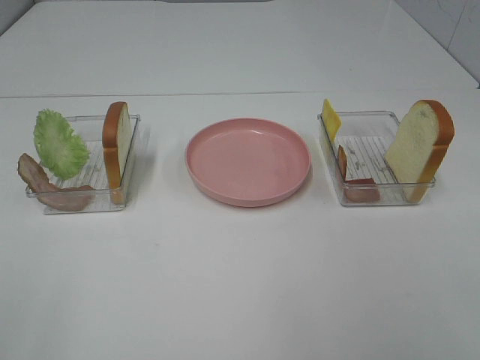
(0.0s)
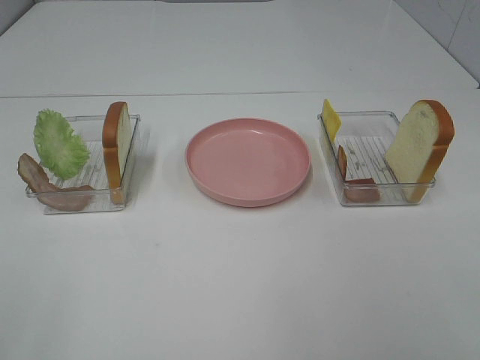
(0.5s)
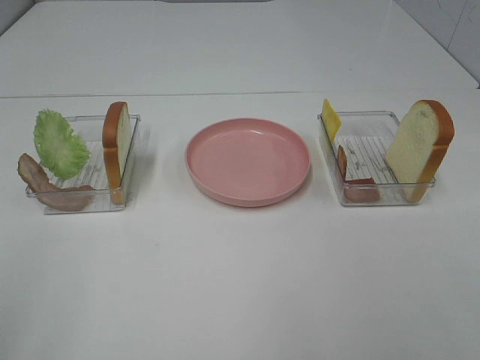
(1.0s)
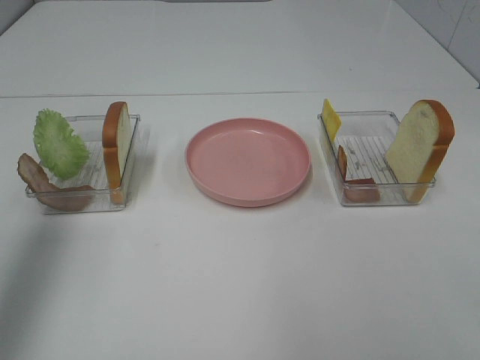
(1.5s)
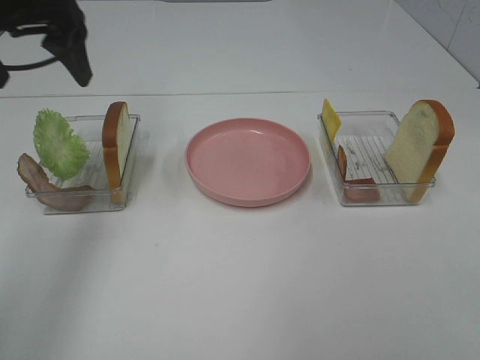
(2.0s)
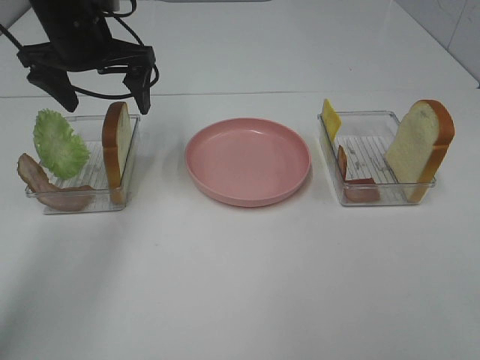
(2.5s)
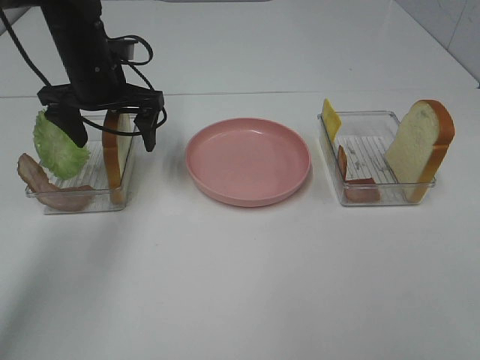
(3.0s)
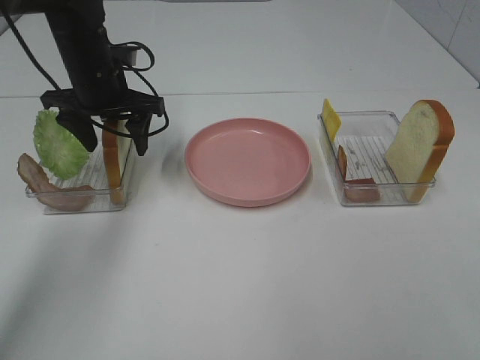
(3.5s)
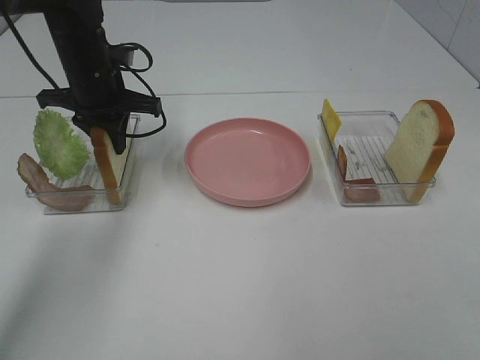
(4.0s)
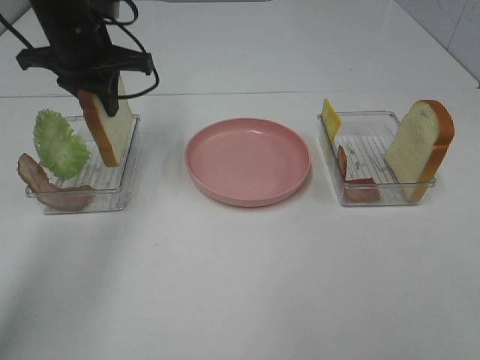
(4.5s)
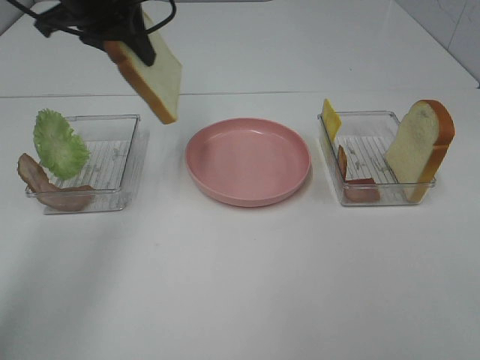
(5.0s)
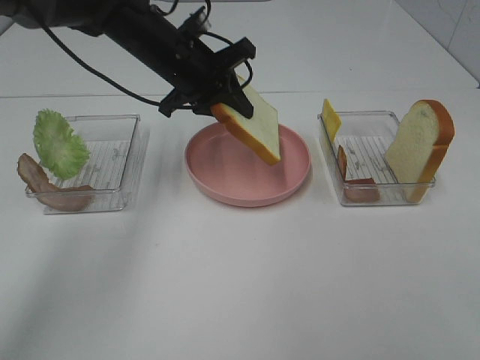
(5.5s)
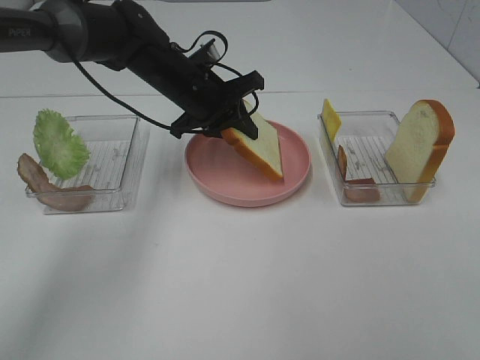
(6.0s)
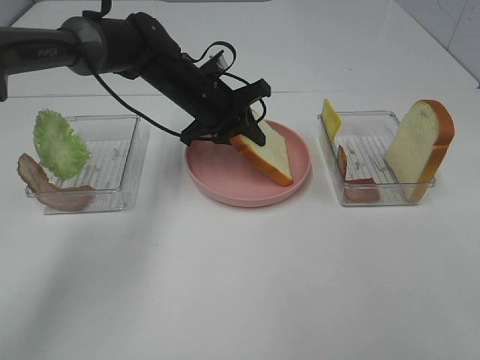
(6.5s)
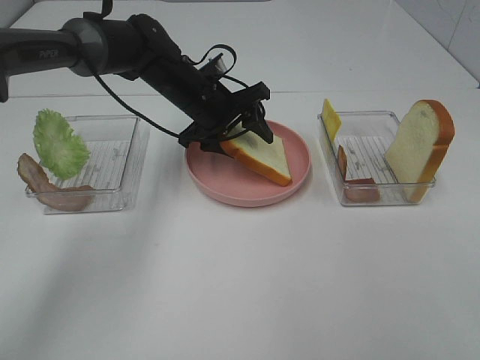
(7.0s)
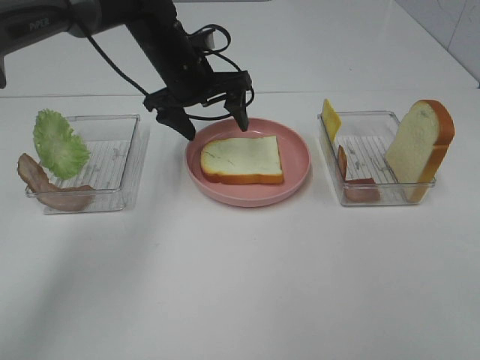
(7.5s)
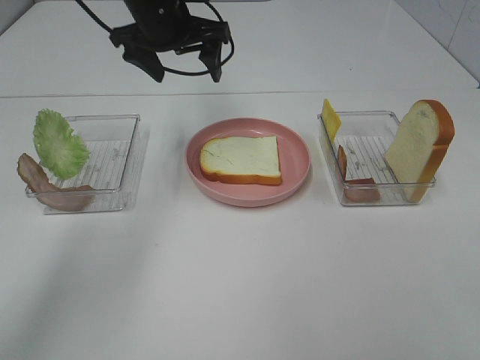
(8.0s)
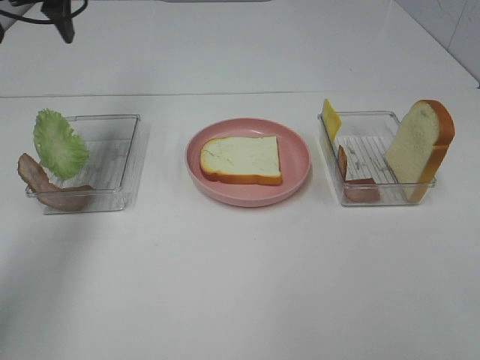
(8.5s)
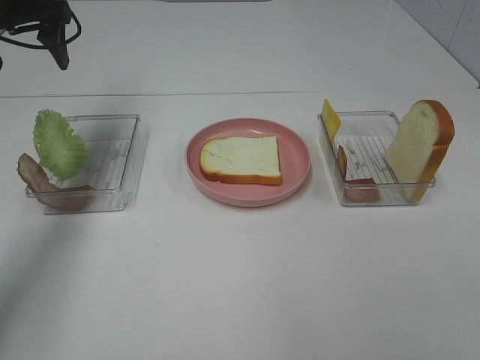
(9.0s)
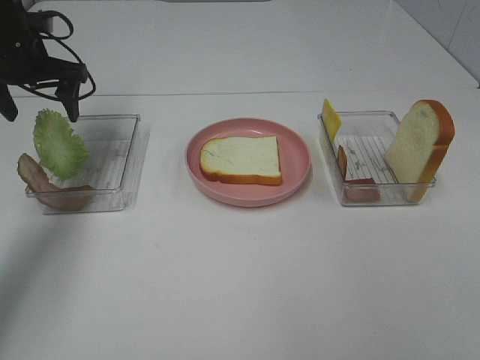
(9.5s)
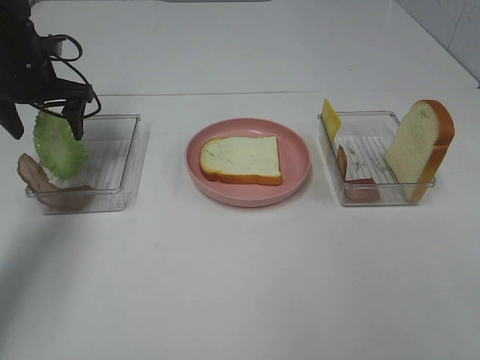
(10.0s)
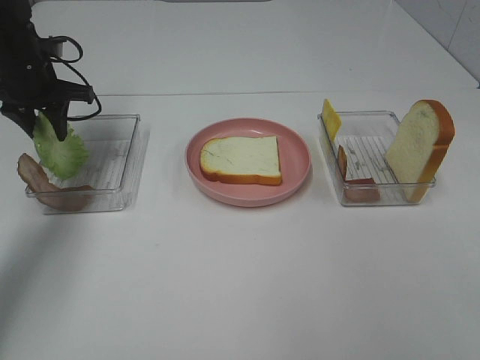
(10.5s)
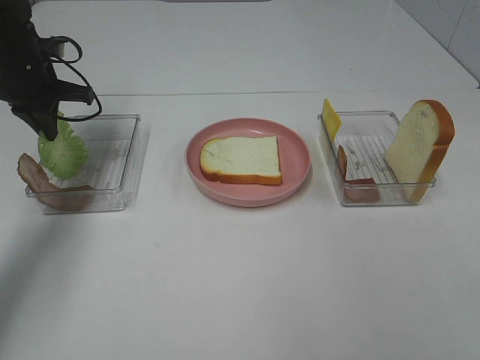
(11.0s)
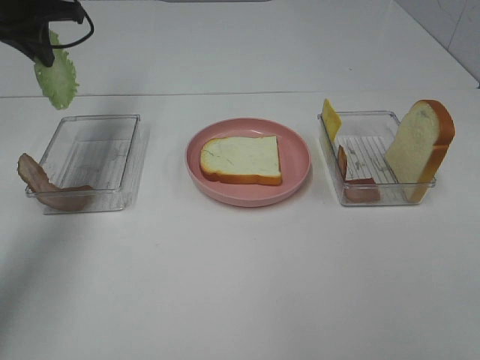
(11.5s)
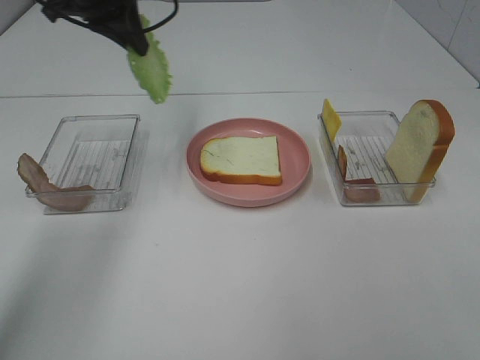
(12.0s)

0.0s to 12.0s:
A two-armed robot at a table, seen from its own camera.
Task of the whole recording: Make sandwiches.
Step, 0.0s to 3.5s: Left hand:grab the bread slice.
Step, 4.0s to 7.5s: Left hand:place the bread slice on the plate.
Step, 8.0s to 10.5s: Left hand:grab the lettuce slice.
0.0s to 2.0s: The left gripper goes approximately 40 cm forward.
2.0s to 4.0s: The left gripper goes some 15 cm downward and forward, and closes.
4.0s to 6.0s: The left gripper shifts about 10 cm to the right, and travels upward and back again, some 10 cm each way.
6.0s to 8.0s: The left gripper goes about 10 cm upward, and opens.
8.0s to 10.0s: The left gripper moves to the left and downward, approximately 20 cm.
10.0s to 12.0s: The left gripper travels upward and to the right by some 20 cm, and closes.

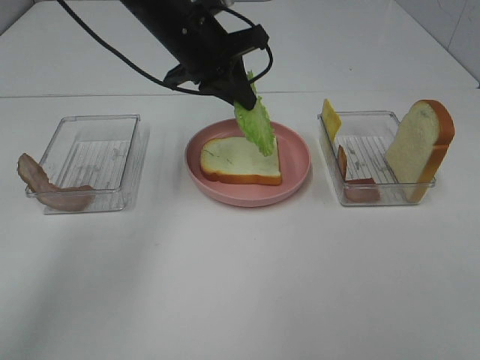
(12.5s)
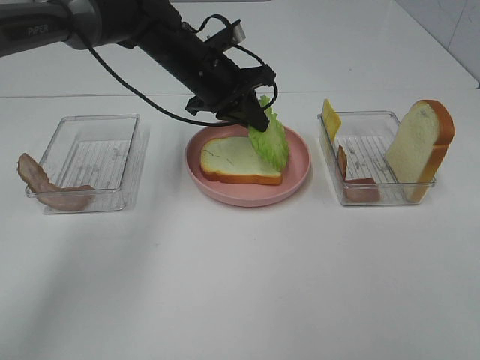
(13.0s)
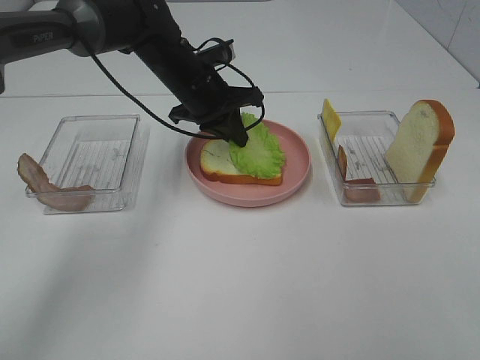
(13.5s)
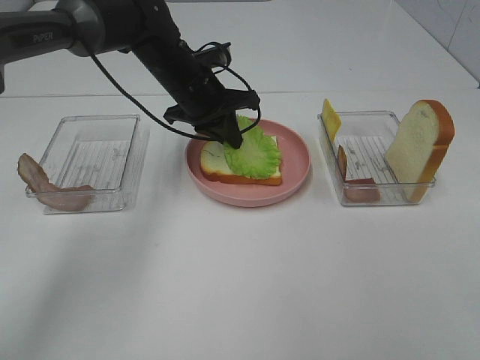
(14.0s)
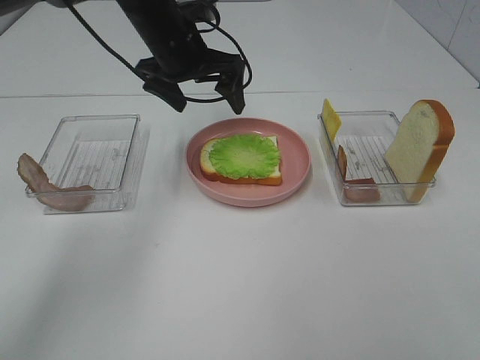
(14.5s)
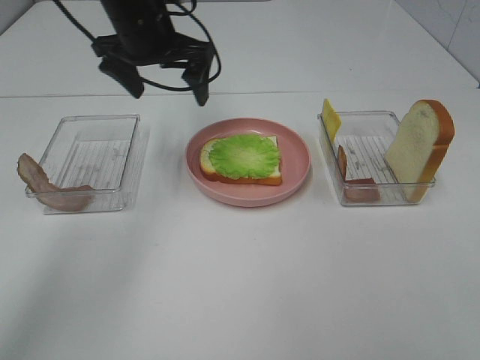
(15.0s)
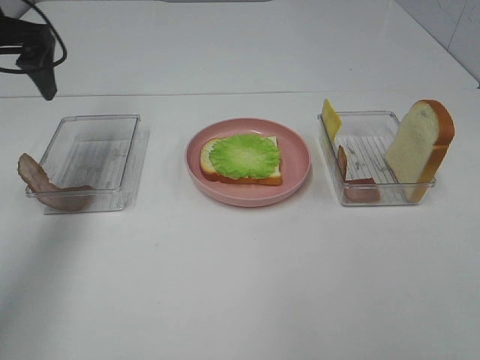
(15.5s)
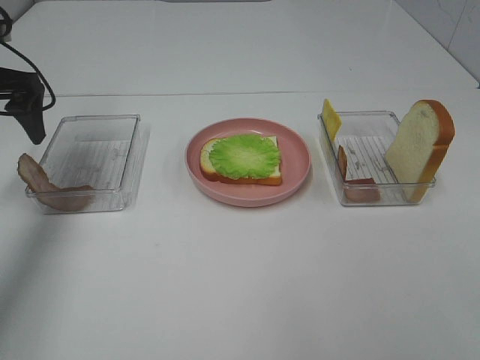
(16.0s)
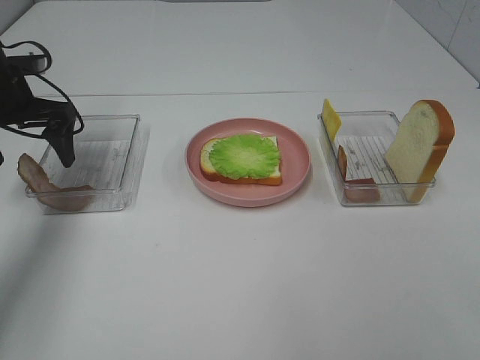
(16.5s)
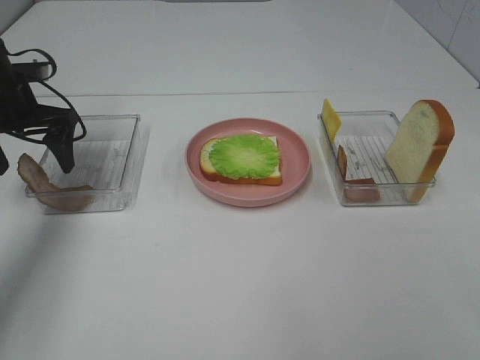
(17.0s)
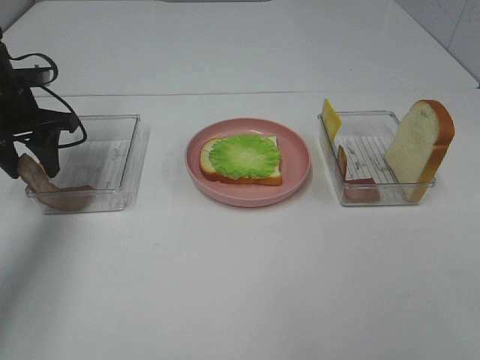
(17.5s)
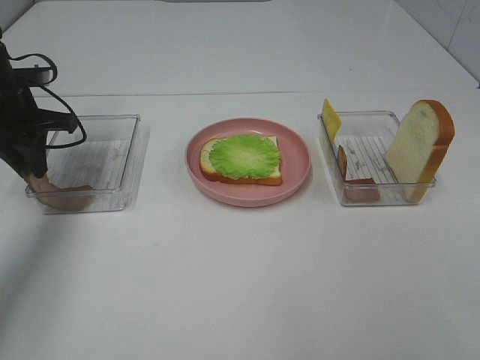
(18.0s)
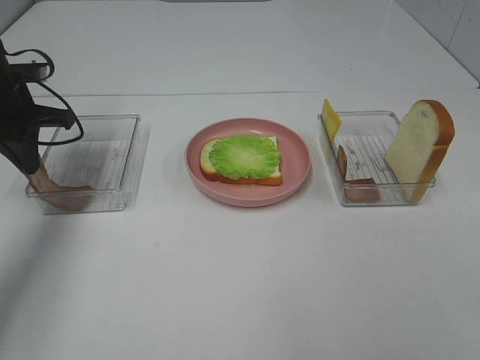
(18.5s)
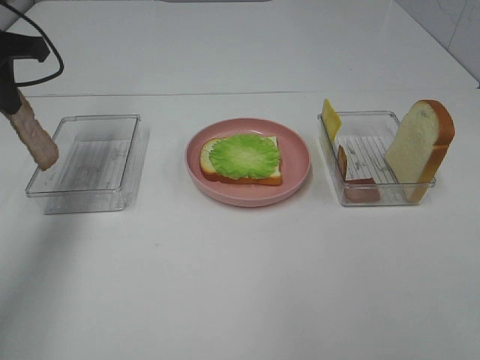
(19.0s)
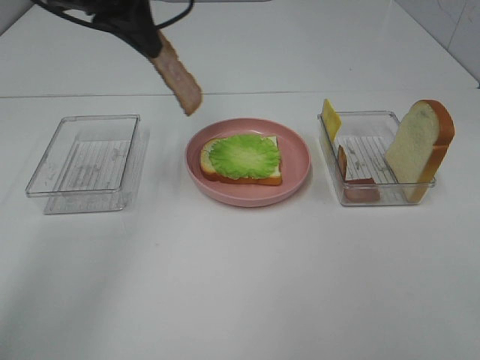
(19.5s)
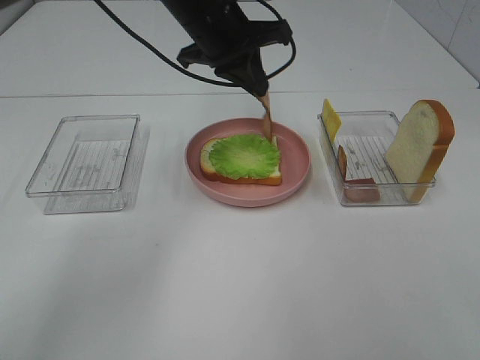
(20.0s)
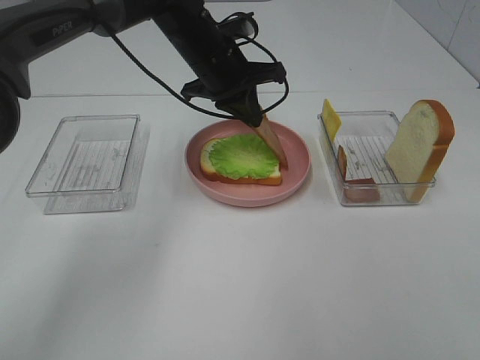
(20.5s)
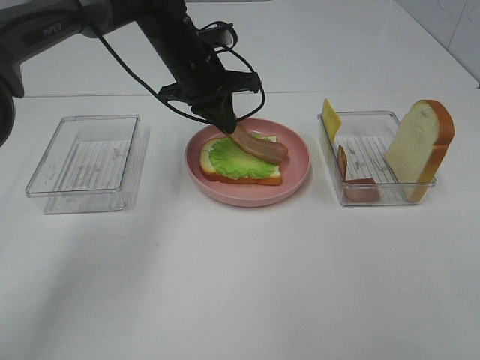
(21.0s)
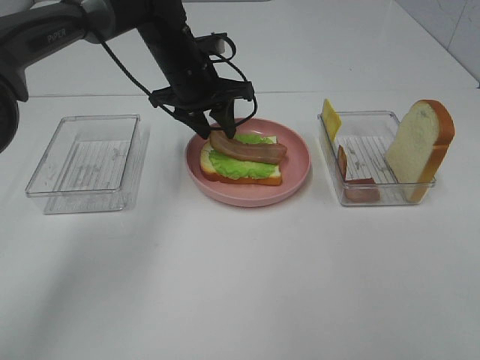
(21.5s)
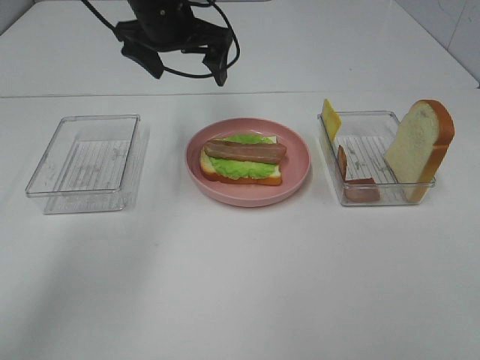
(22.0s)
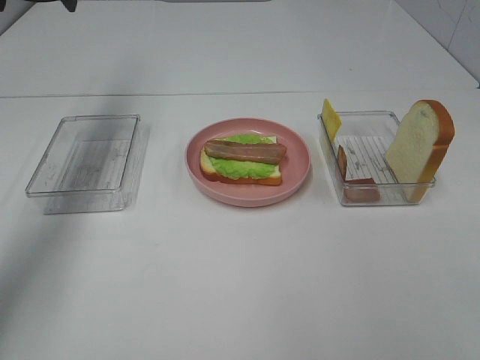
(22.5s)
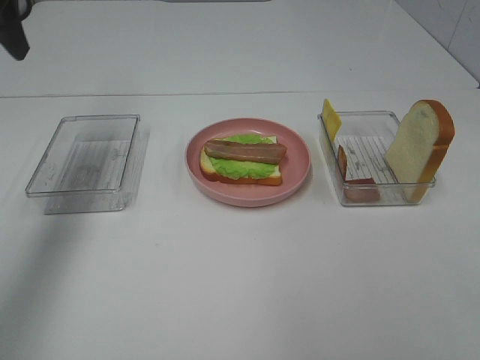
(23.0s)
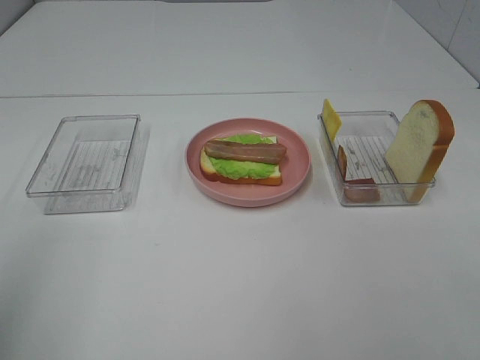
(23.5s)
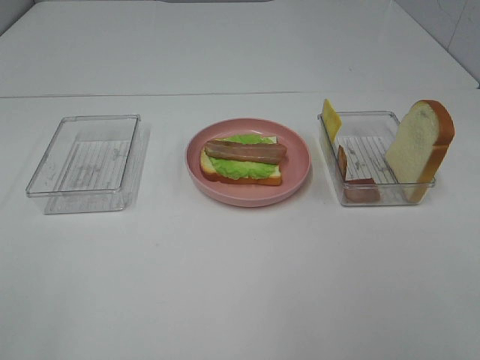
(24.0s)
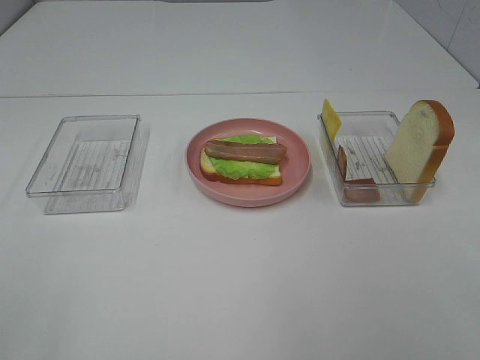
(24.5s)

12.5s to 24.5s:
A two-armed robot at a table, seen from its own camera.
Task of the whole recording: Make sandwiches.
Step, 14.5s to 18.0s: Left hand:grab the bacon.
Step, 18.5s to 22.0s: Left hand:place bacon on lettuce slice.
12.5s to 14.5s: The left gripper opens its fingers.
14.5s to 16.5s: The left gripper shifts roughly 20 cm to the left.
16.5s to 18.5s: The left gripper closes up.
18.5s to 20.5s: The left gripper goes some 25 cm to the right.
20.5s to 22.5s: The left gripper heads to the left and upward, covering some 30 cm, and opens its fingers.
22.5s to 24.5s: The left gripper is displaced backward by approximately 50 cm.

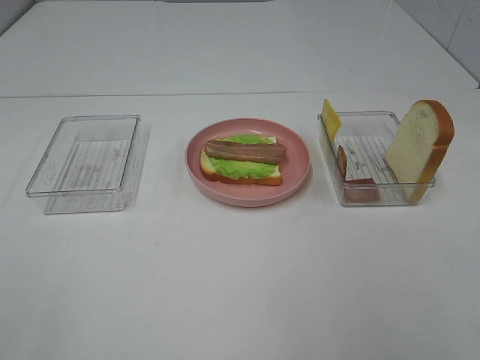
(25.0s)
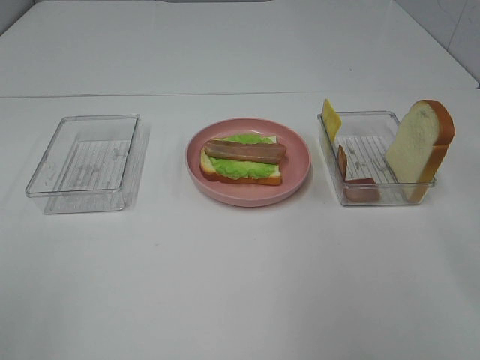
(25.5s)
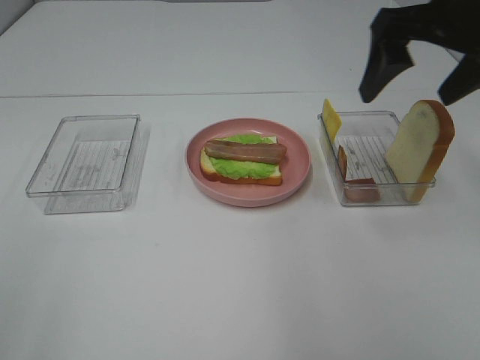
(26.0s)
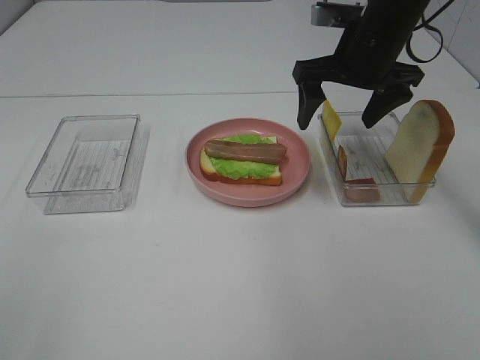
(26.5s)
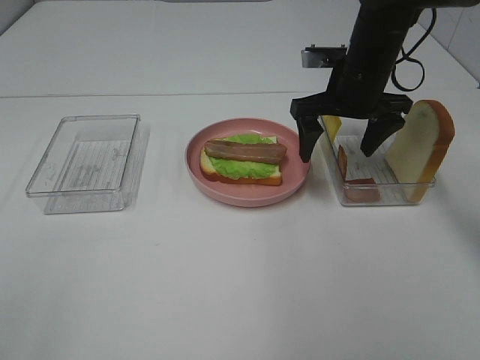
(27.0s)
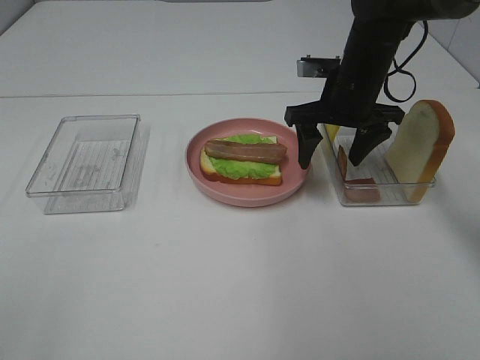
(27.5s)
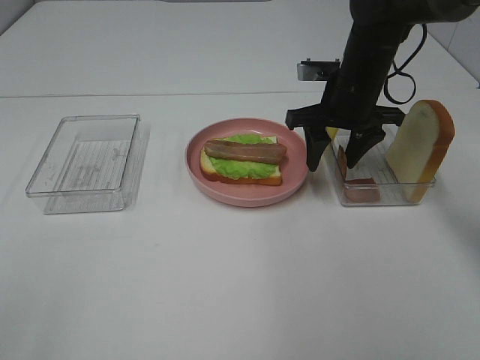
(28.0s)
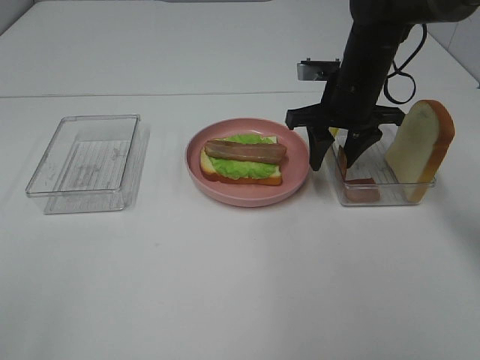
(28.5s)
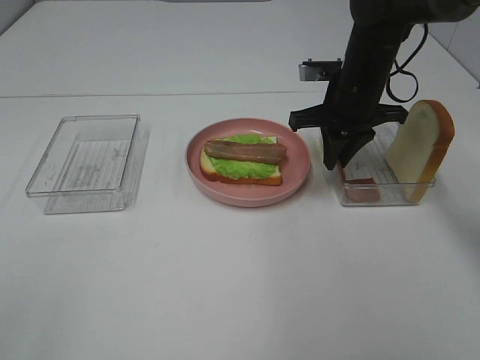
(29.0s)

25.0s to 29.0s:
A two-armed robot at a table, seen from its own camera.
Task of the whole recording: Make sandwiches.
25.0s to 27.0s: The right gripper shifts roughly 35 cm forward.
27.0s to 29.0s: The right gripper closes its fingers.
